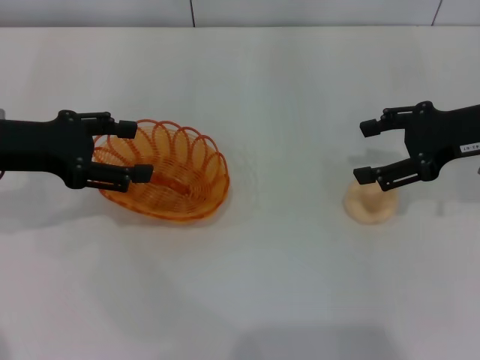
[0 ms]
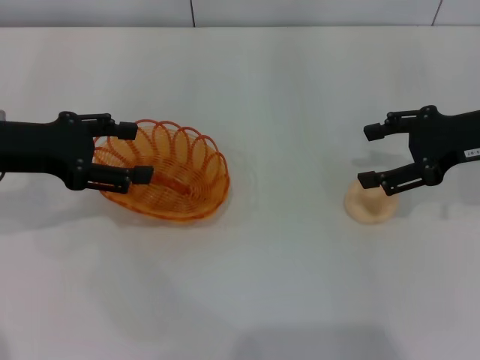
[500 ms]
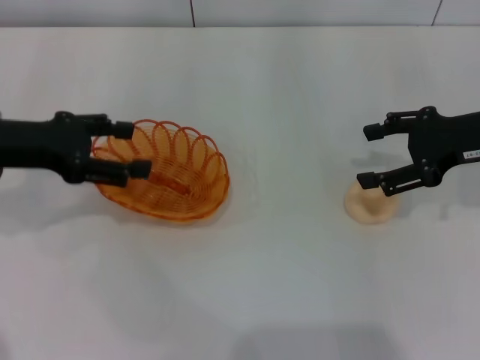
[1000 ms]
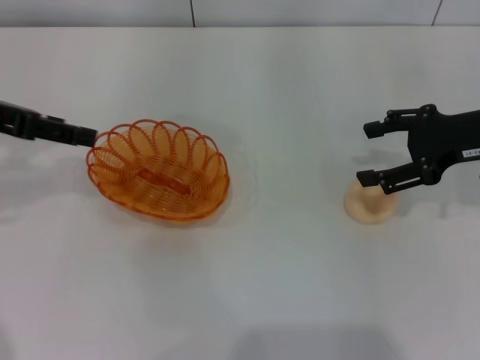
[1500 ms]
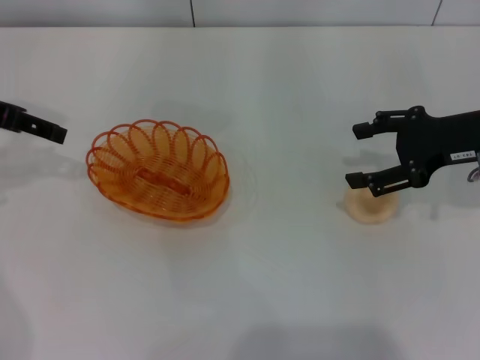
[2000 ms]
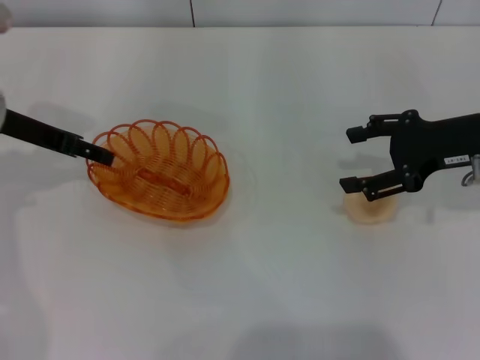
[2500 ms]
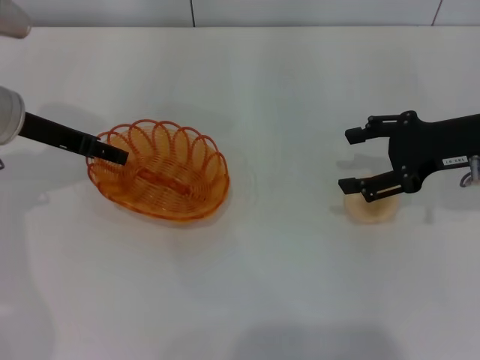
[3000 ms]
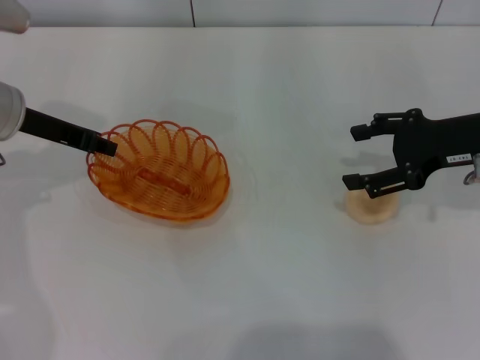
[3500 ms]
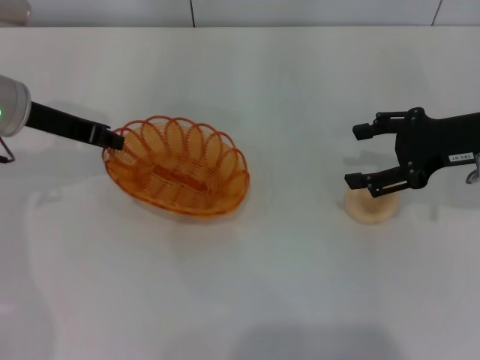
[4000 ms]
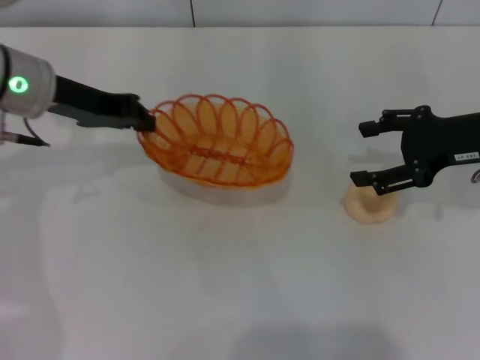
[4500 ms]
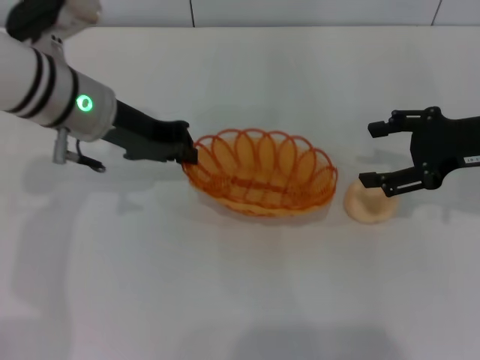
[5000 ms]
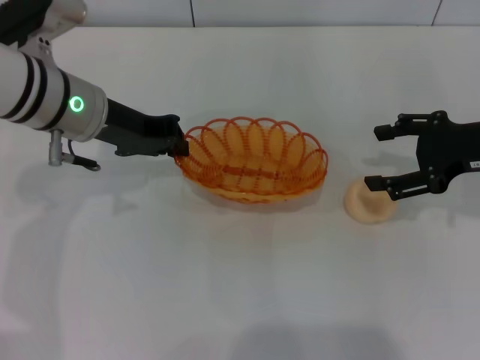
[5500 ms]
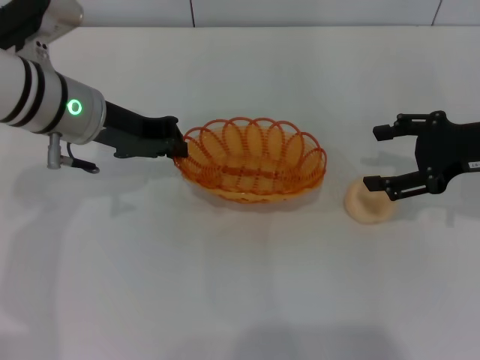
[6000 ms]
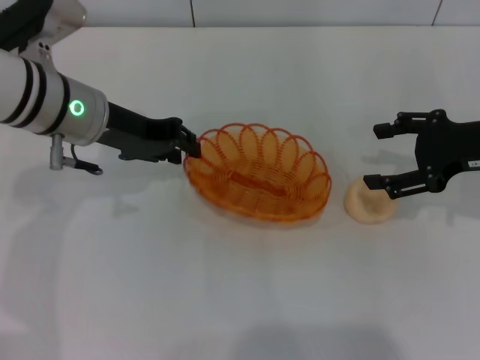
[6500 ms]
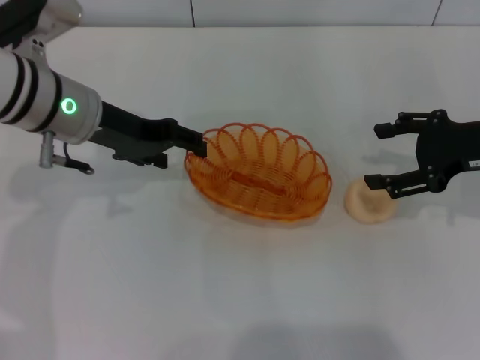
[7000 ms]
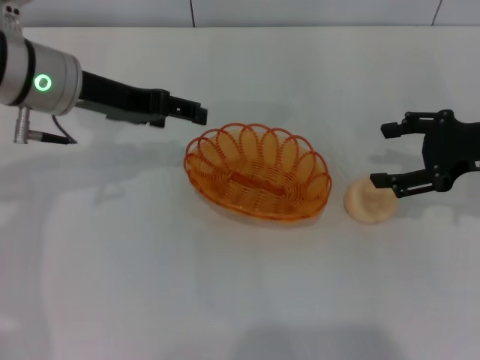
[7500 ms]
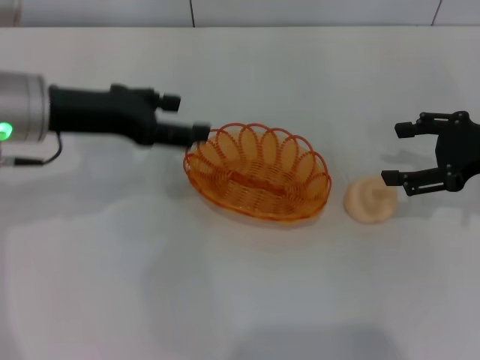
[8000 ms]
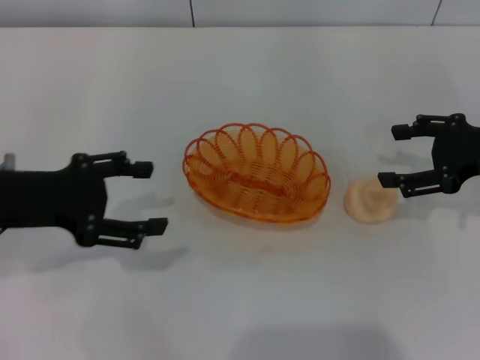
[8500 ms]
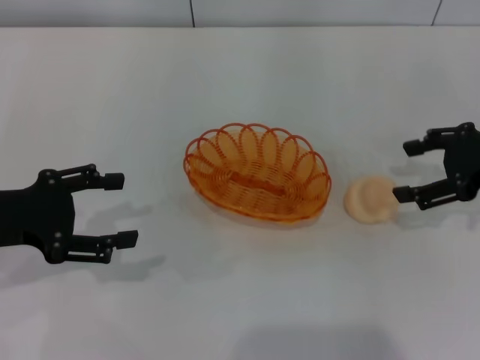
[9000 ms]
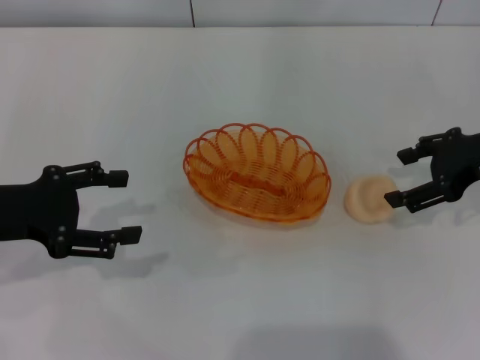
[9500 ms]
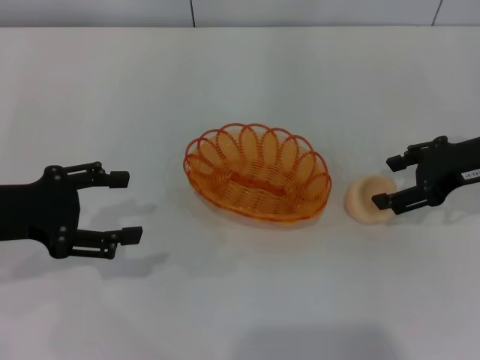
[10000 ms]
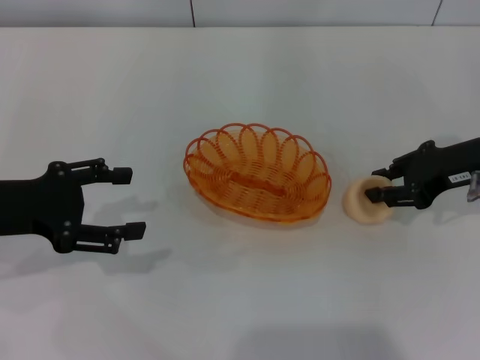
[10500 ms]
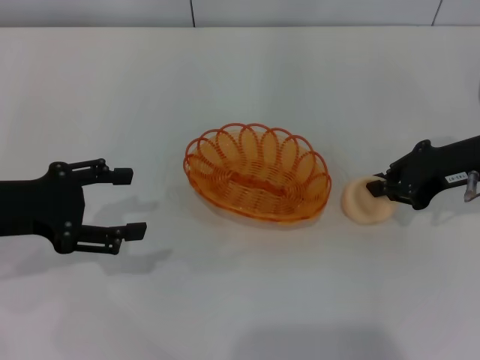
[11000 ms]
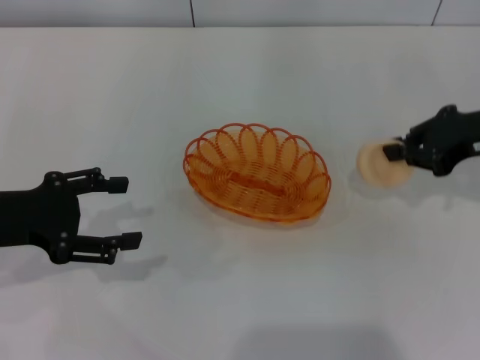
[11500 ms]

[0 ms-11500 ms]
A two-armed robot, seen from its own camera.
Step, 0 ms to 4000 ms: Pick up the basket with the left gripper.
Step, 4500 ms to 7000 ms: Place the basket in the center of view with the left gripper.
Step, 7500 ms to 11500 ms: Pick up the egg yolk pastry with the right gripper.
0 ms to 2000 ms: The left gripper is displaced upward by some 5 cm.
2000 ms to 4000 ms: The left gripper goes approximately 10 cm downward and to the right, and closes up.
4000 ms to 6000 ms: The left gripper shifts about 5 cm to the right.
6000 ms to 7500 ms: The left gripper opens.
7500 ms to 9500 ms: The left gripper heads backward, to the left and downward, covering about 15 cm.
9500 ms to 11500 ms: The right gripper closes up.

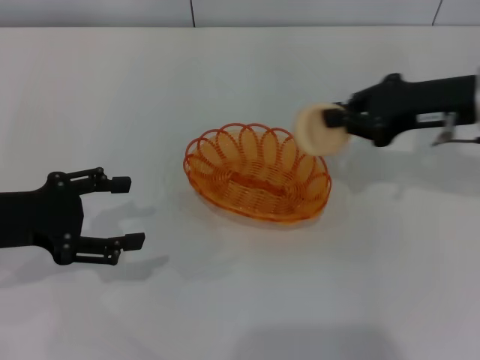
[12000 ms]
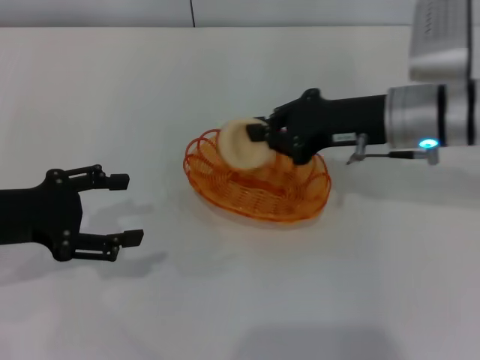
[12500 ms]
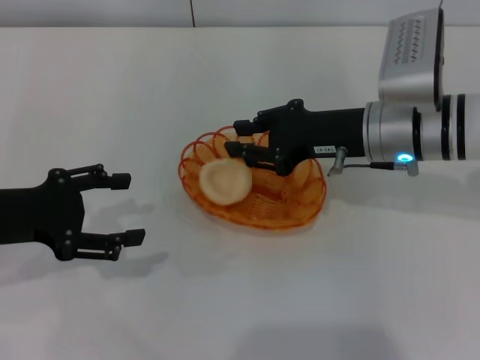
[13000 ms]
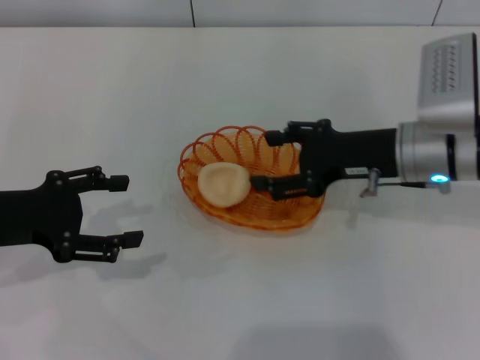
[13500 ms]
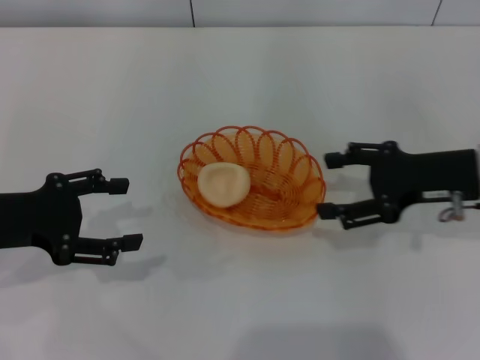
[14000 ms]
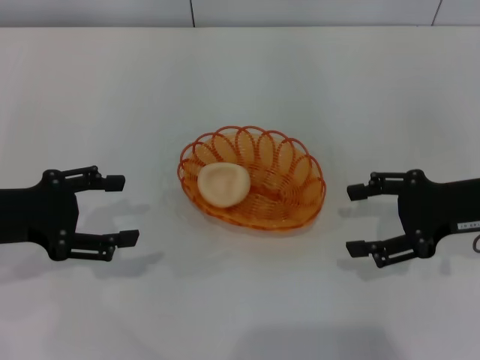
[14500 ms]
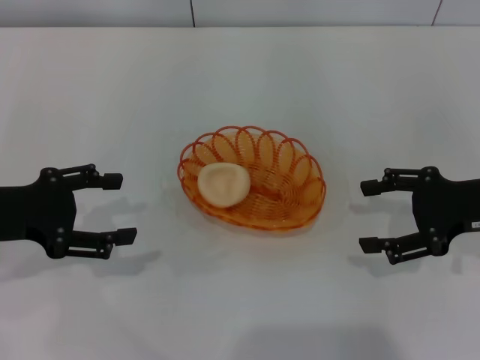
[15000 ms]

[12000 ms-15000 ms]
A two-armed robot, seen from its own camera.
Step, 12000 ms to 13000 ms: Place the egg yolk pastry into the basket with the right gripper.
12000 ms to 13500 ms: The right gripper moves to the left and downward, roughly 10 cm, and opens.
13500 ms to 15000 ms: The right gripper is displaced to the right by roughly 10 cm.

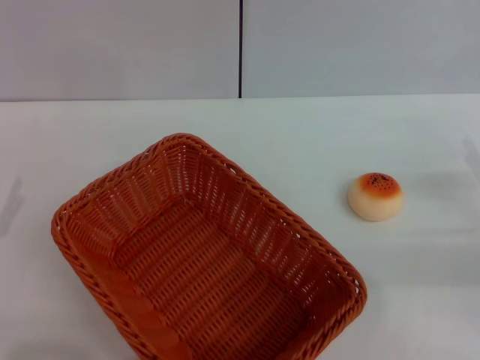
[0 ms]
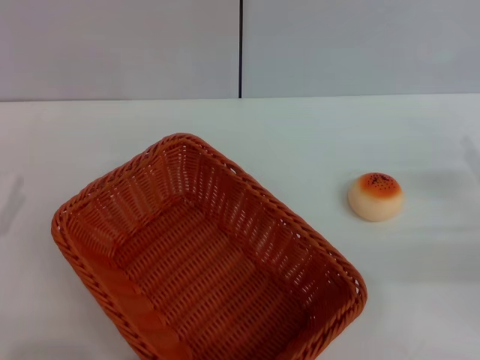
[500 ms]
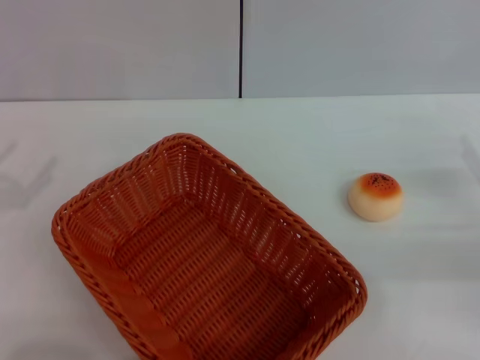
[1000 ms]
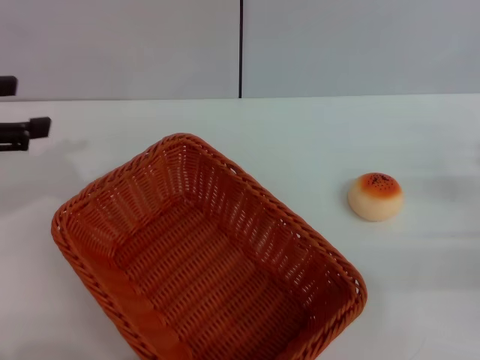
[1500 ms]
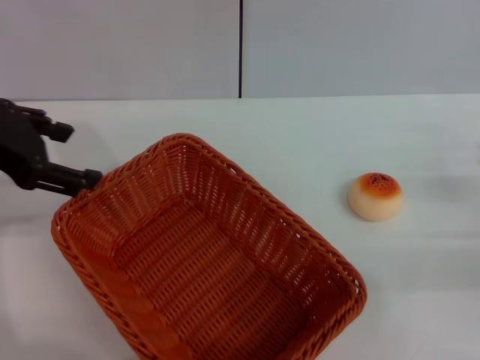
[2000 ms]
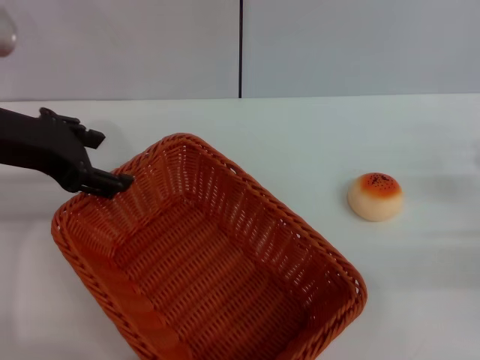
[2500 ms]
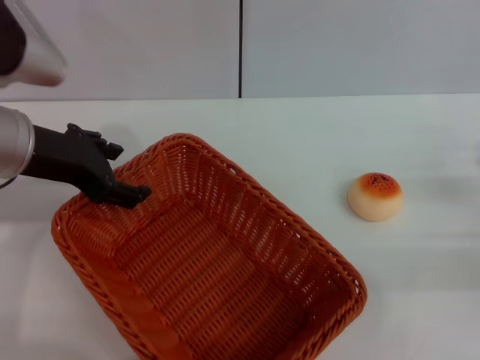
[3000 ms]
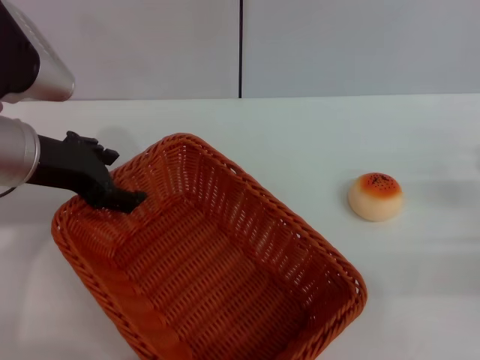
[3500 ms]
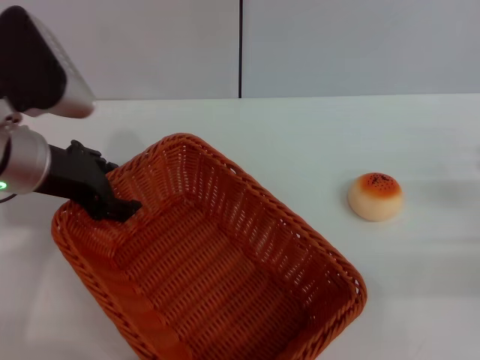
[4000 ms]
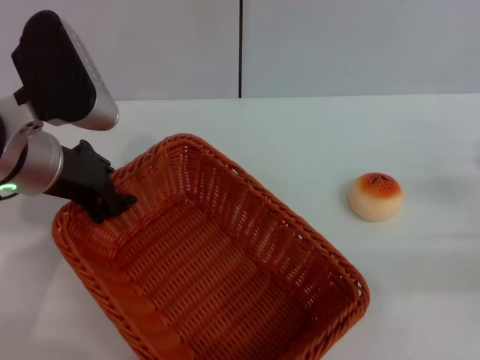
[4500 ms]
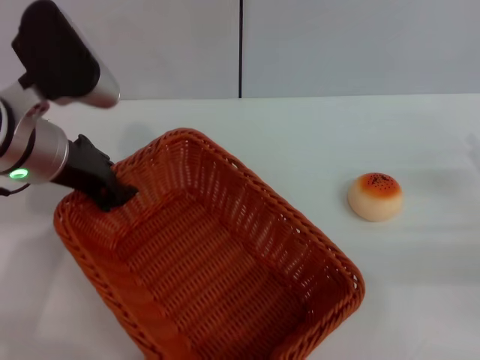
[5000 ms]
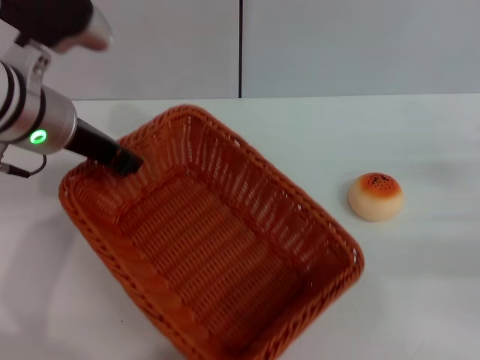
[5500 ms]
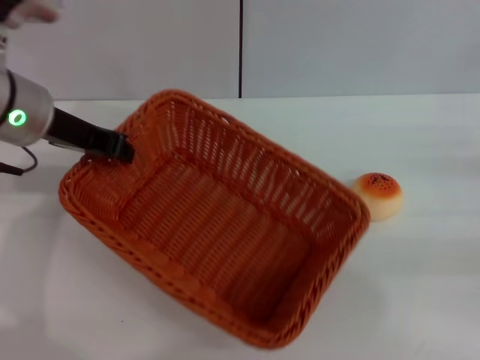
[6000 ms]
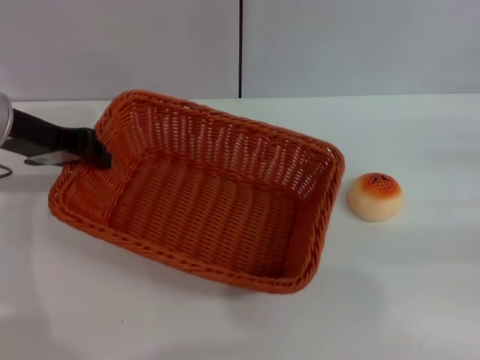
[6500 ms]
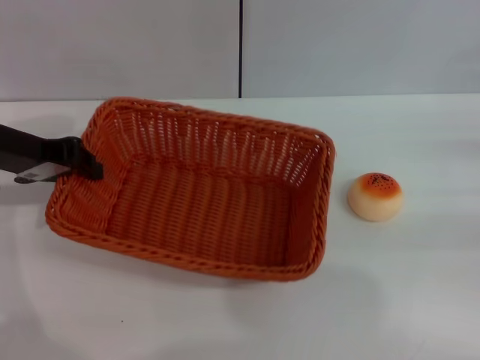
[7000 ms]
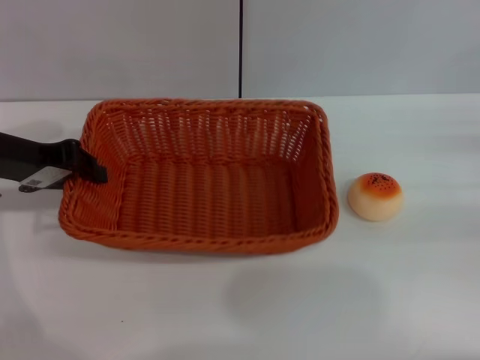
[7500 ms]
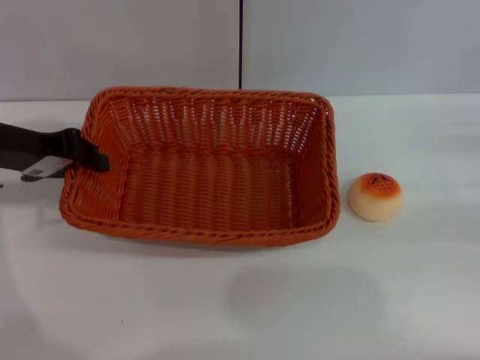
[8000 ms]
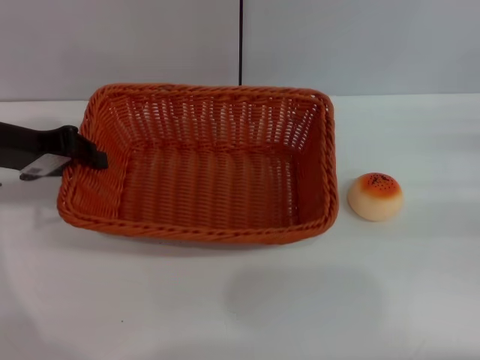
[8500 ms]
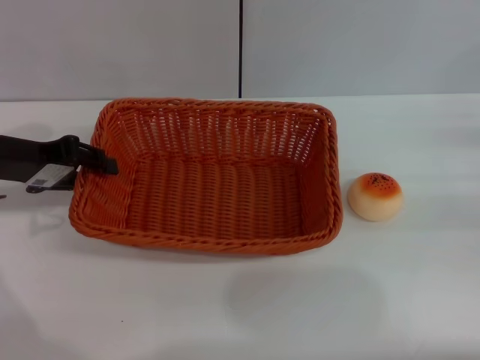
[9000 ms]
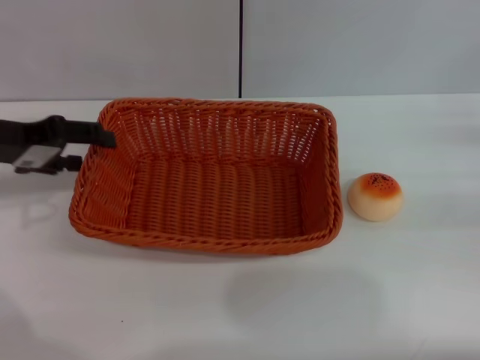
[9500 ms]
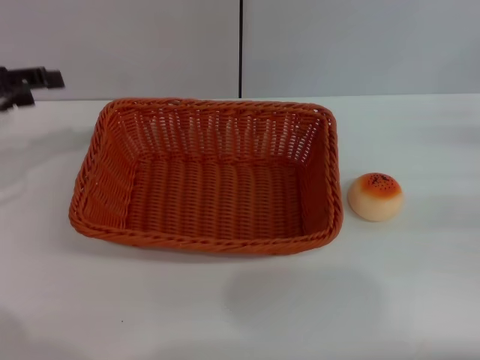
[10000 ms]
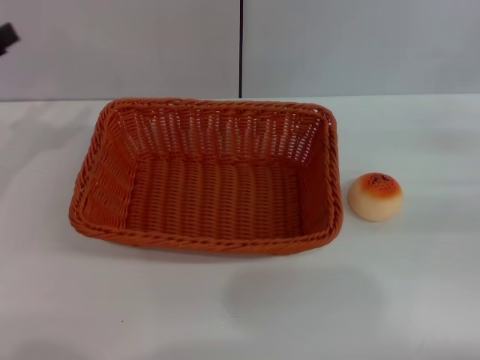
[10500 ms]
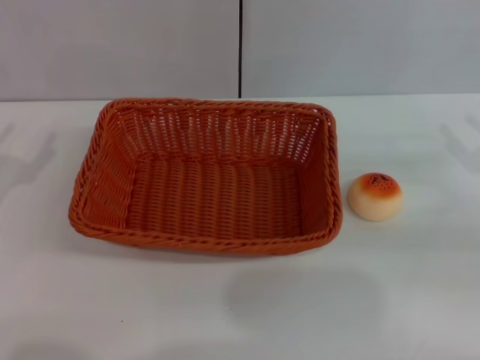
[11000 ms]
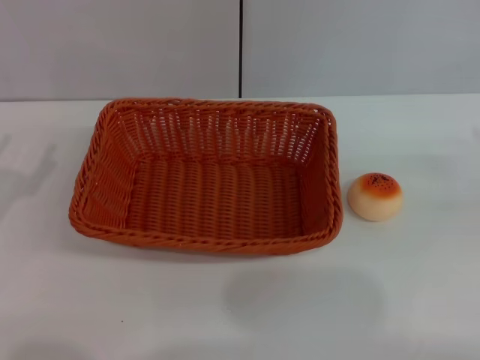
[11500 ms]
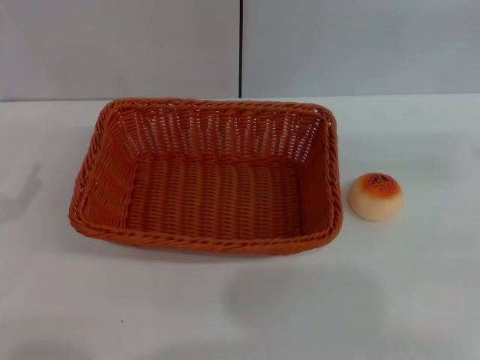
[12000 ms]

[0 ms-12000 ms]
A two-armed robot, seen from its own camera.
Step, 0 ms to 9000 ms: Move the basket to the center of view with the left gripper.
0 ms to 2000 ms: The left gripper is displaced upward and forward by some 25 cm.
2000 ms to 4000 ms: The left gripper moves downward and to the right, roughly 10 cm.
4000 ms to 6000 ms: The left gripper closes; the right gripper ends up about 5 cm from where it was.
6000 ms to 8000 ms: The left gripper shifts roughly 5 cm to the left.
8000 ms to 10000 ms: The left gripper goes approximately 5 cm to the left, and opens up.
10000 ms to 12000 ms: The left gripper heads backward and downward, covering some 20 cm.
